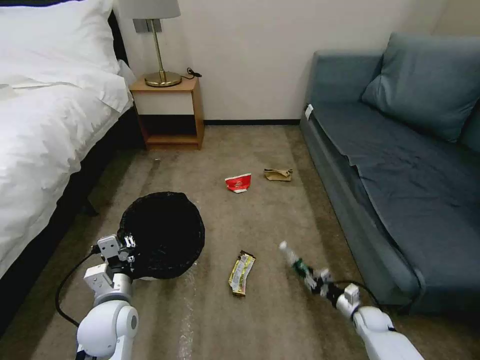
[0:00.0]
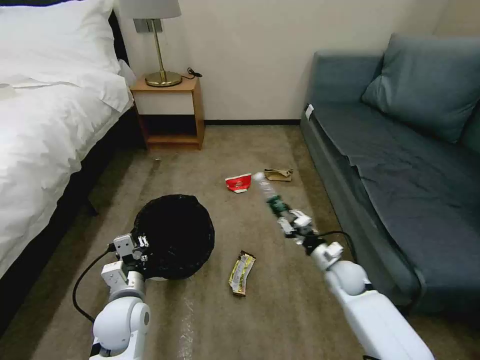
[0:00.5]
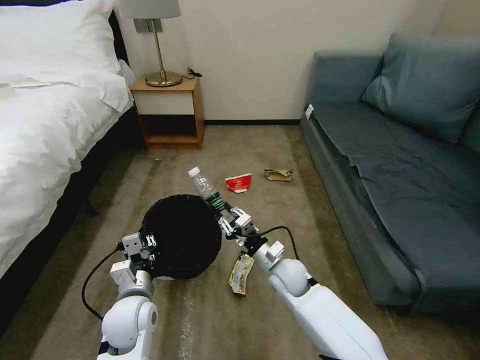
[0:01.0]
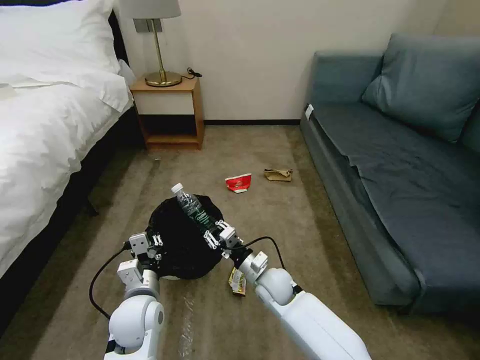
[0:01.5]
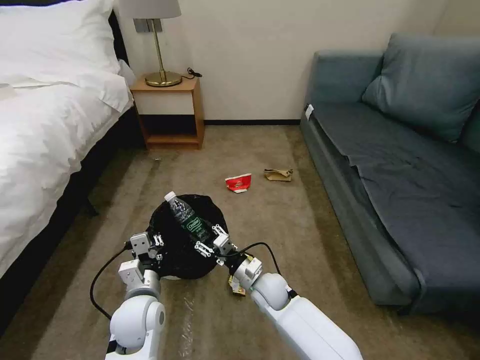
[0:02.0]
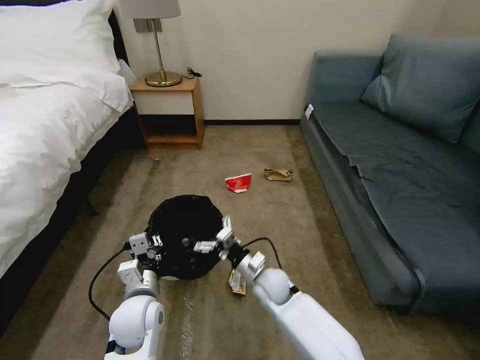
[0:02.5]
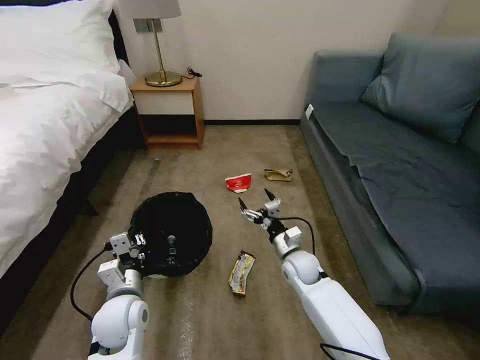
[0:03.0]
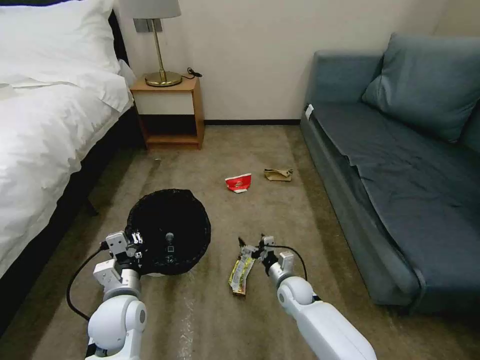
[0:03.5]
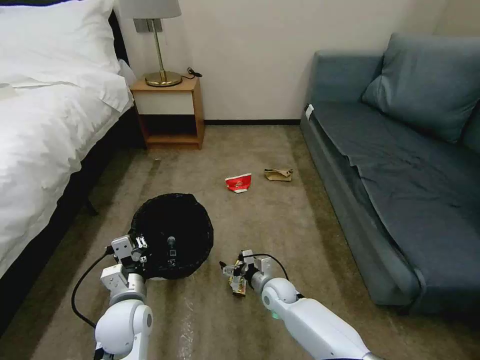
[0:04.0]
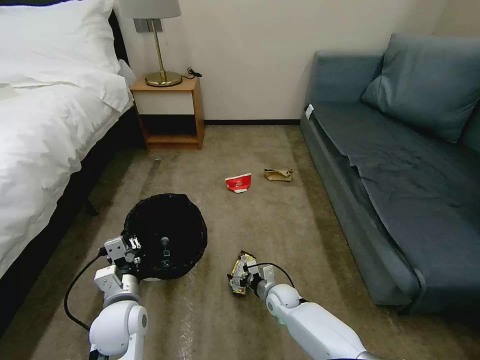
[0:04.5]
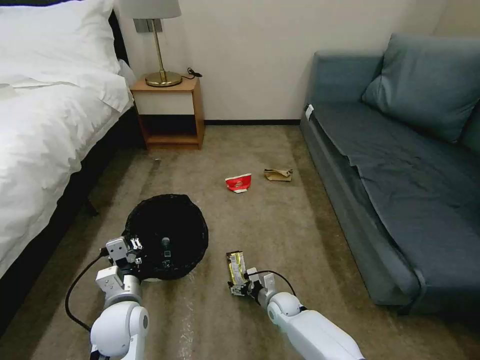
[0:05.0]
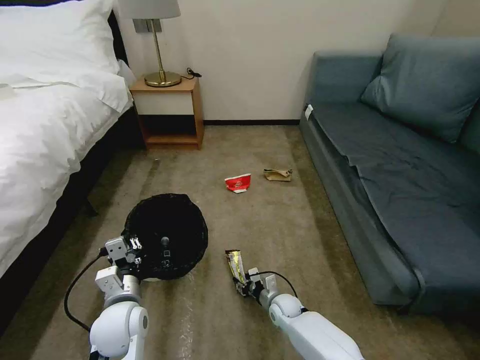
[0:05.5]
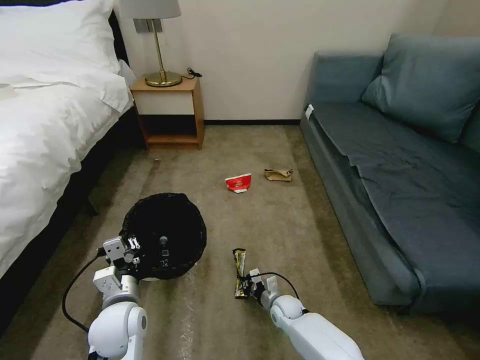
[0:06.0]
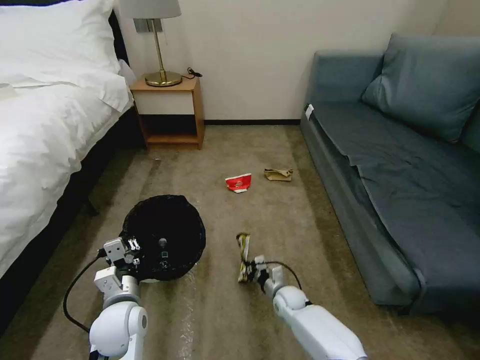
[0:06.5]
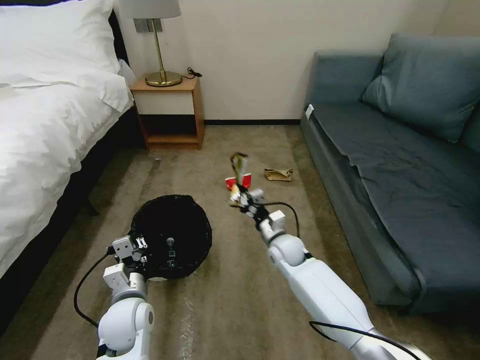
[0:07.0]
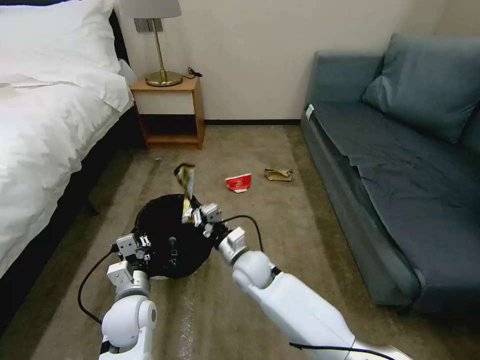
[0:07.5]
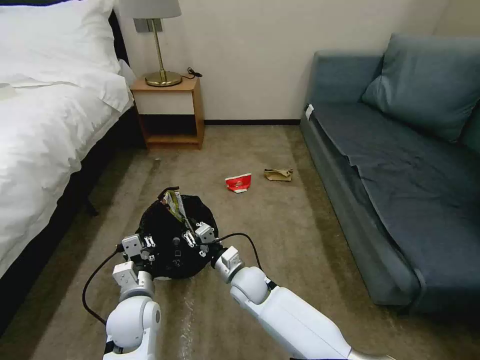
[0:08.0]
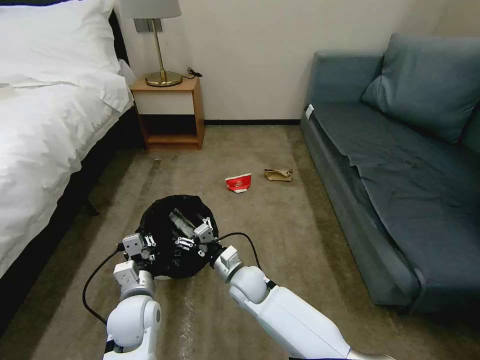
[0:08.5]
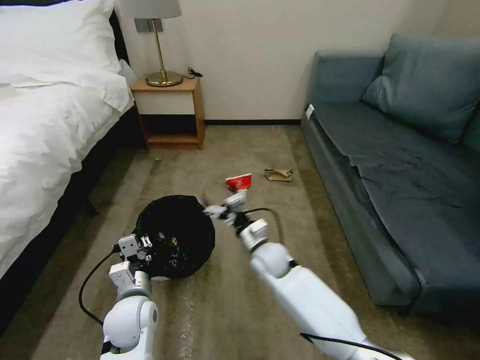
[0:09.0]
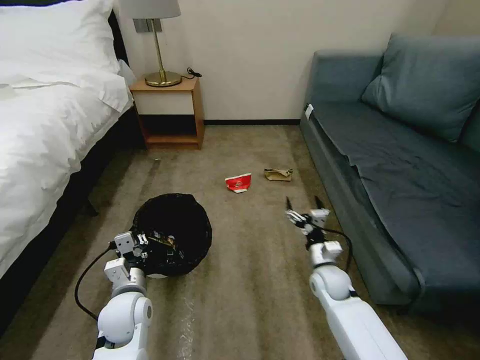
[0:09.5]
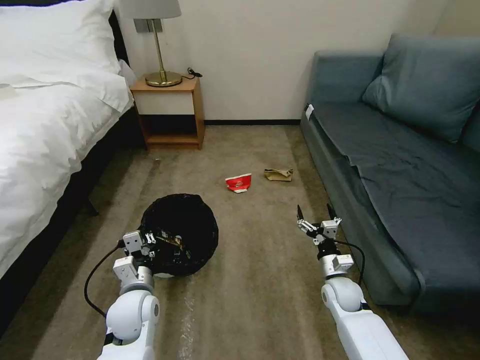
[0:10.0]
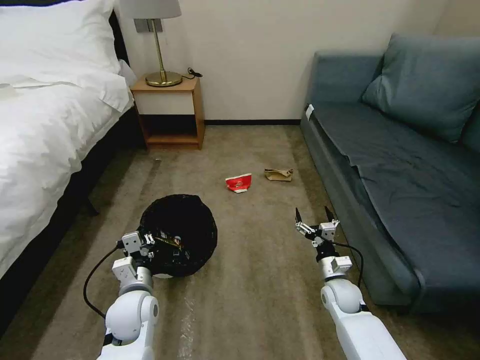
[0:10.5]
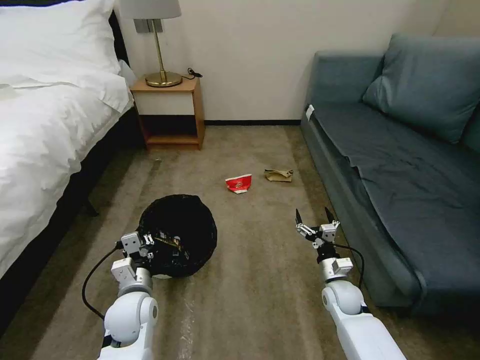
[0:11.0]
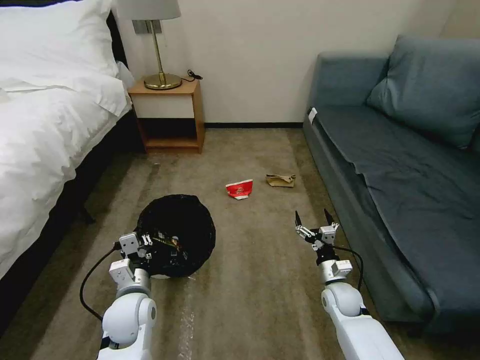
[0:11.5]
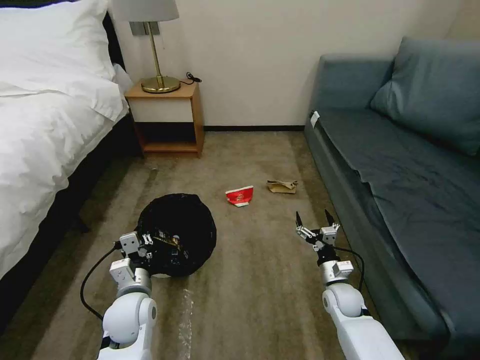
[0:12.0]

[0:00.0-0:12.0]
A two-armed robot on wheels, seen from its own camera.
Task of the whole recording: Pick up the trash bin, then pick up the garbage on the floor and place it into the trash bin.
0:00.0 to 0:02.0: The left gripper moves some 5 cm. The right gripper travels to the left and upward by approximately 35 cm.
0:02.0 to 0:04.0: The right gripper heads downward, covering some 5 cm, and opens up.
0:04.0 to 0:06.0: The right gripper goes approximately 10 cm downward, and closes its fingers.
0:06.0 to 0:08.0: The right gripper travels upward and to the left by roughly 20 cm.
0:08.0 to 0:10.0: The right gripper heads to the right, covering roughly 25 cm, and opens.
0:10.0 to 0:12.0: The grippers stay close to where they were, moving slightly.

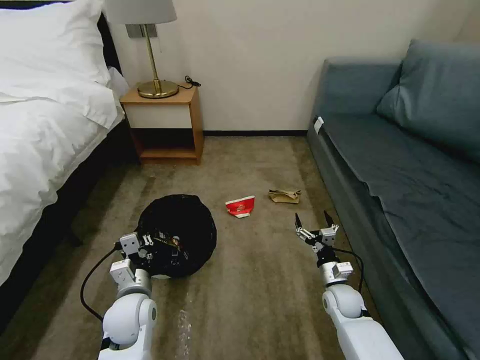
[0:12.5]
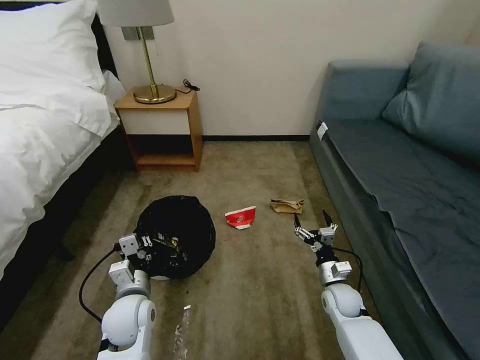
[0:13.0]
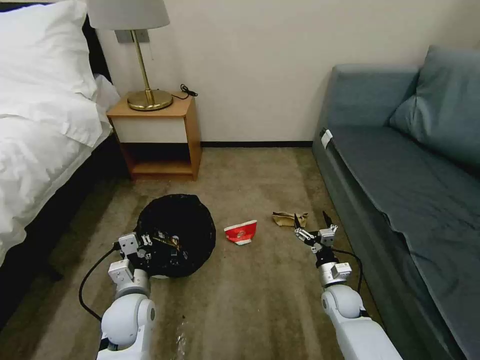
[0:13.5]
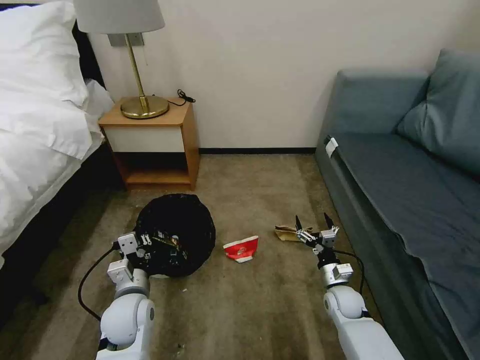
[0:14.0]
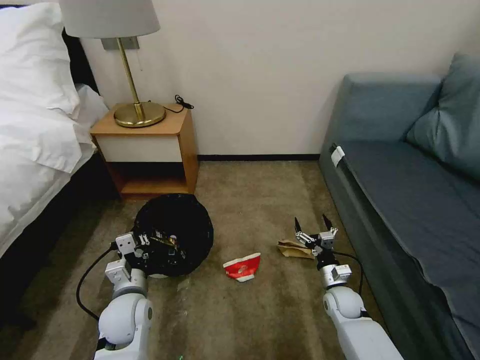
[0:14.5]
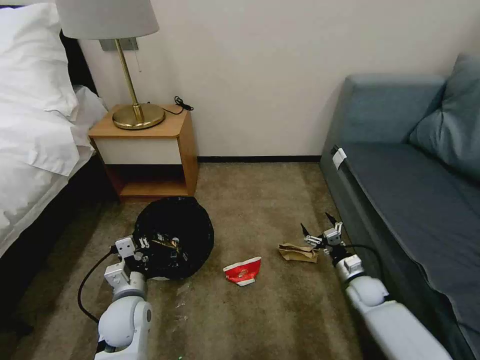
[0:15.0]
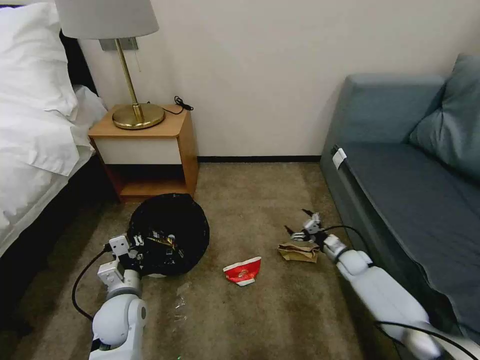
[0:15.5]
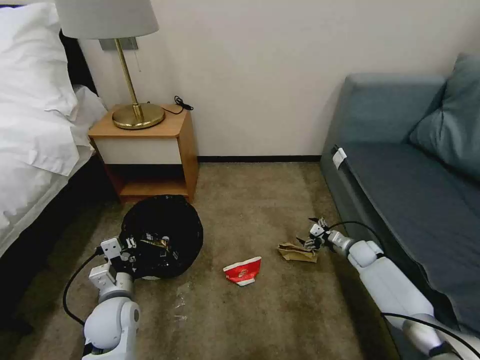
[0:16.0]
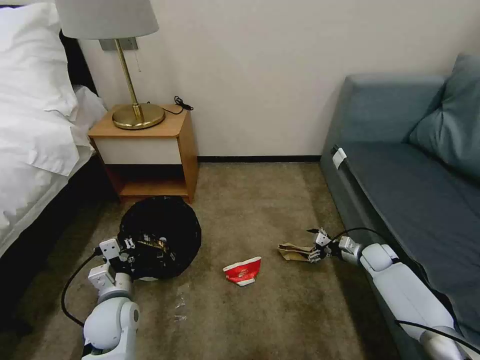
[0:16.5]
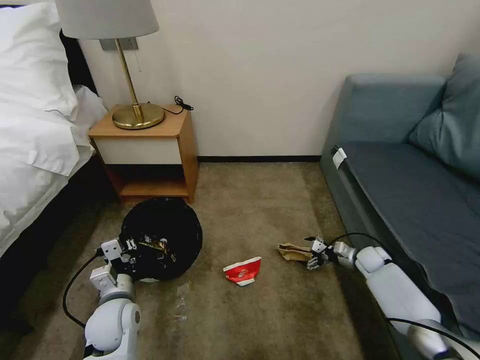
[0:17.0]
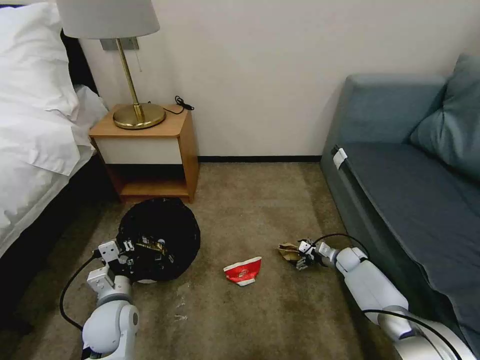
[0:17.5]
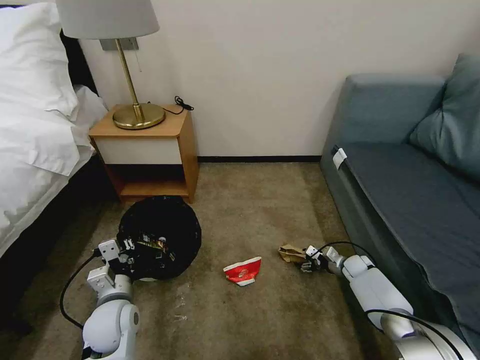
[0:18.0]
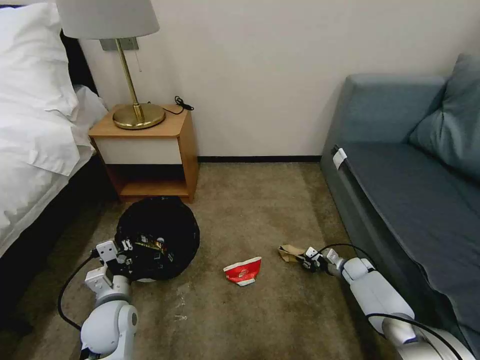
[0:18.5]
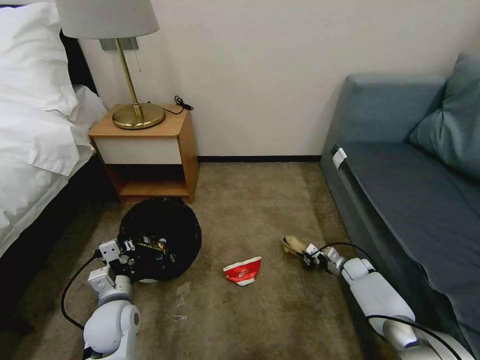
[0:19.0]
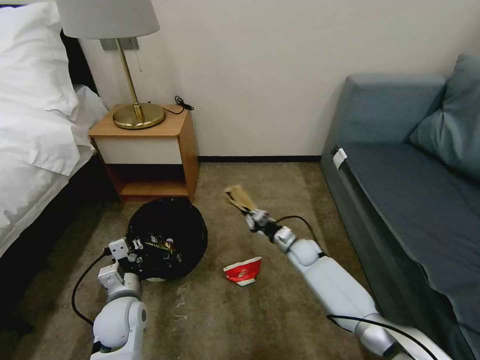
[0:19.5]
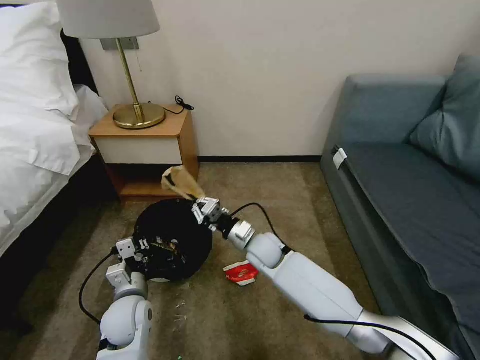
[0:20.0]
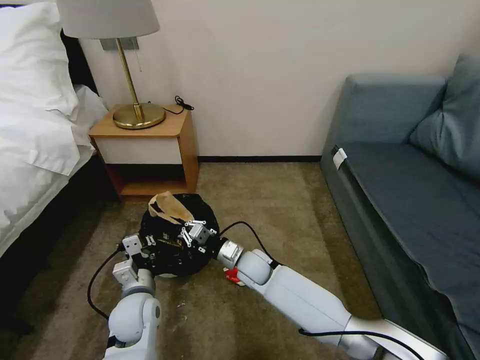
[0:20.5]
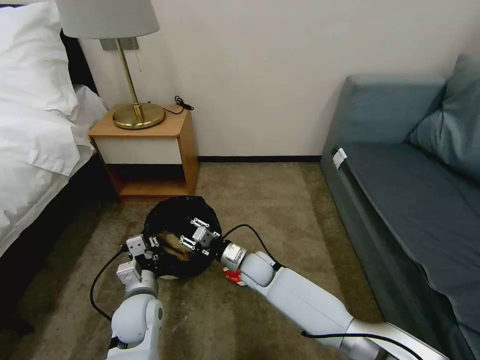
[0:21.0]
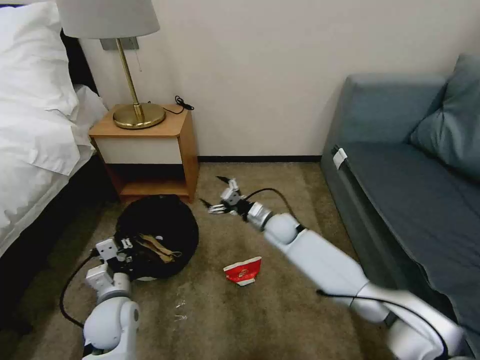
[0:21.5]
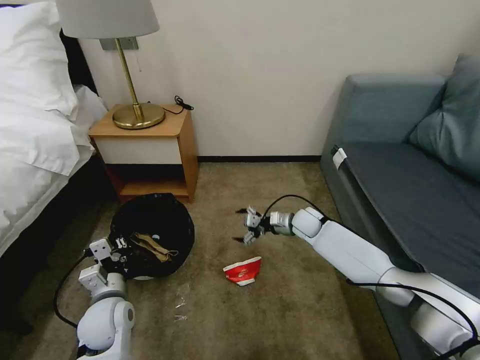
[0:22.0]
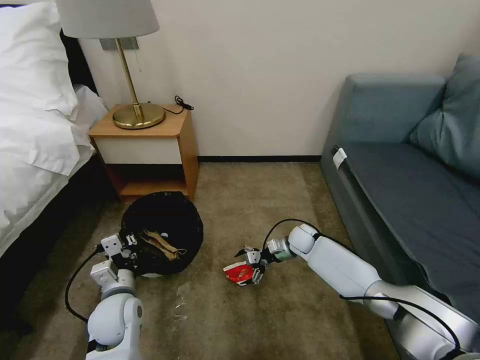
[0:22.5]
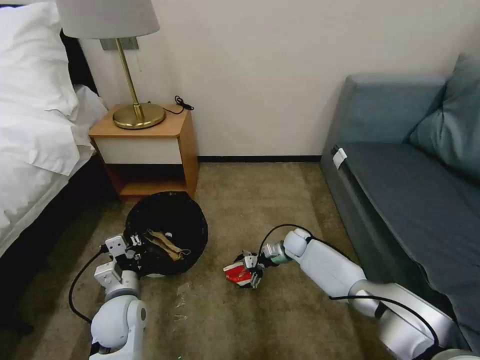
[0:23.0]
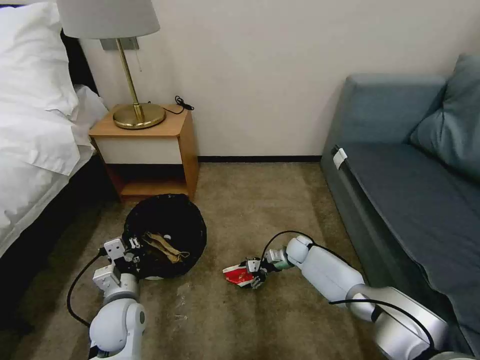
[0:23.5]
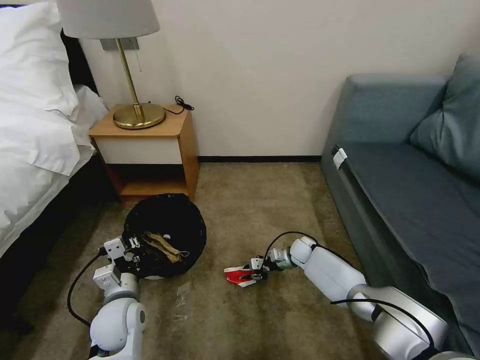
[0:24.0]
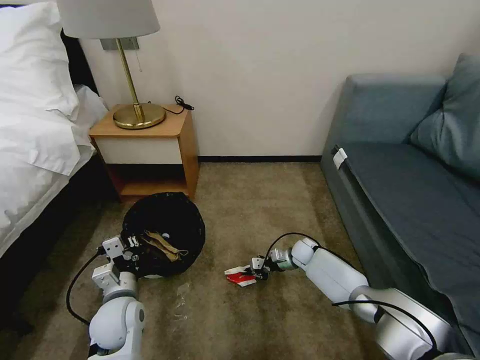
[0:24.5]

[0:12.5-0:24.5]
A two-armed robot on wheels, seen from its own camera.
Task of the whole recording: Pick up the trash bin, then pick up the garbage on the floor and place it into the trash bin.
0:14.5 to 0:16.5: The right gripper shifts approximately 20 cm to the right and forward.
0:16.5 to 0:18.5: The right gripper shifts about 10 cm downward, and closes.
0:18.5 to 0:20.5: The right gripper goes approximately 35 cm to the left.
0:20.5 to 0:22.5: The right gripper shifts roughly 20 cm to the right and forward, and opens.
0:22.5 to 0:24.5: The right gripper shifts approximately 5 cm downward, and closes up.

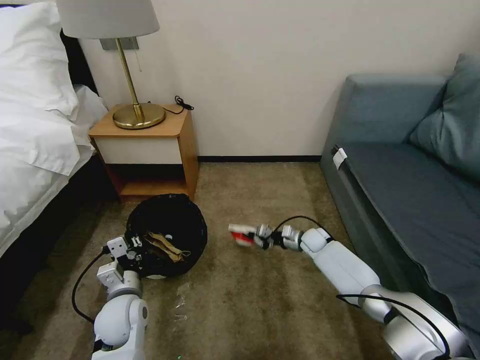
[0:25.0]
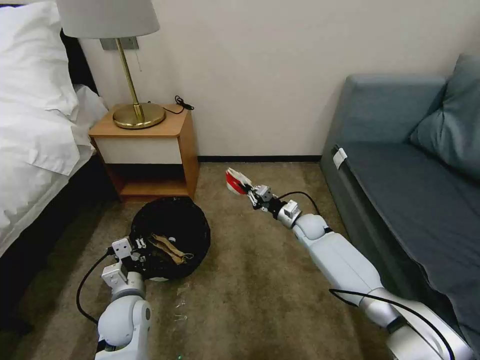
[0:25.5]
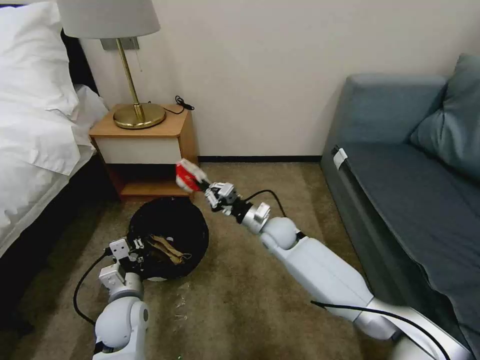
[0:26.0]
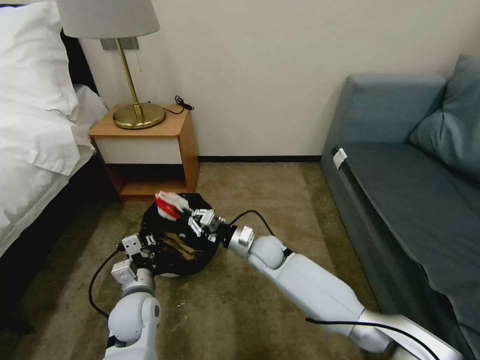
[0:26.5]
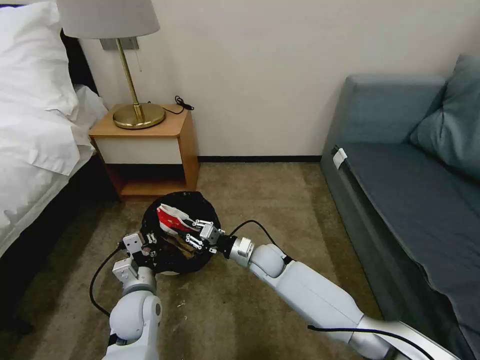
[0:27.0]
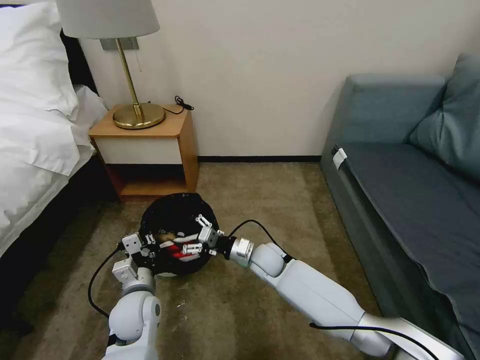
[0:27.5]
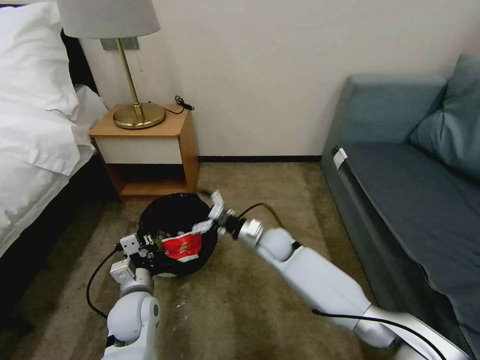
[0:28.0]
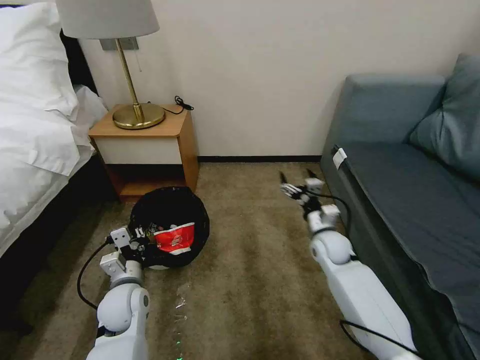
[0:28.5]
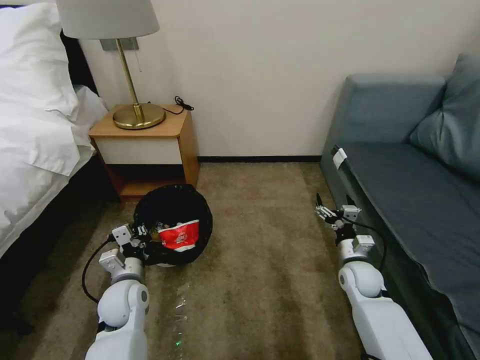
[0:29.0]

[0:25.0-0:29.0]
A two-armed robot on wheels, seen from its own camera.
Task of the whole recording: Pick up the trash bin, then pick up the garbage on the floor and place it into the trash bin.
0:25.0 to 0:27.0: The right gripper moves to the left and backward, some 20 cm.
0:27.0 to 0:29.0: The right gripper shifts some 25 cm to the right, and opens.
